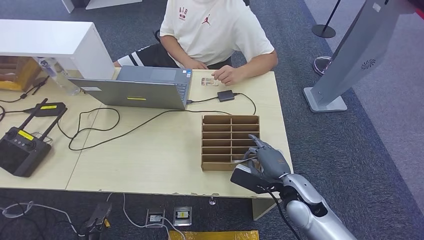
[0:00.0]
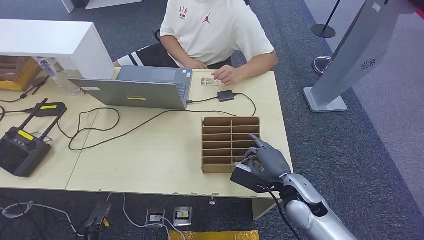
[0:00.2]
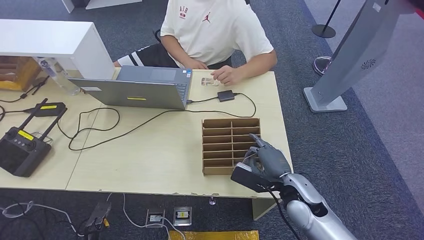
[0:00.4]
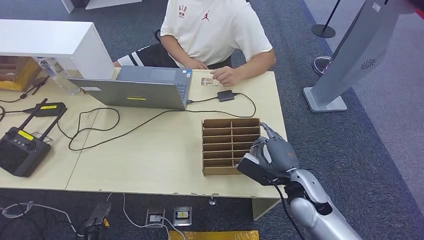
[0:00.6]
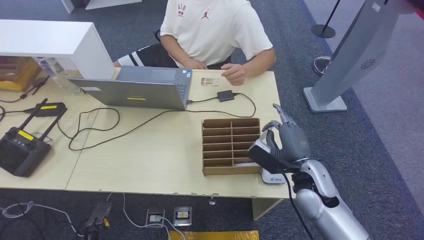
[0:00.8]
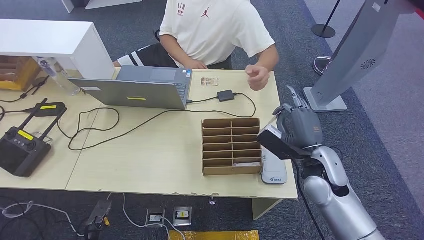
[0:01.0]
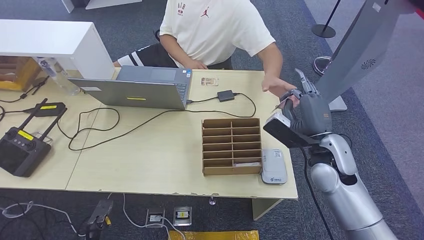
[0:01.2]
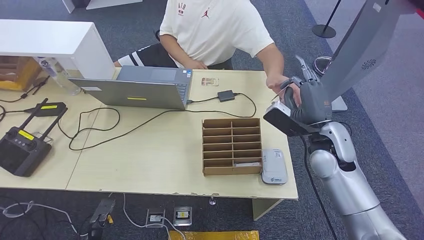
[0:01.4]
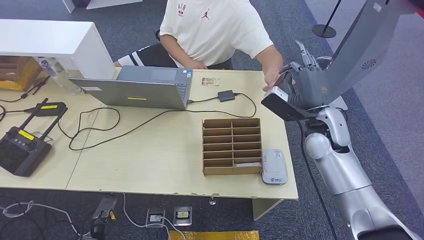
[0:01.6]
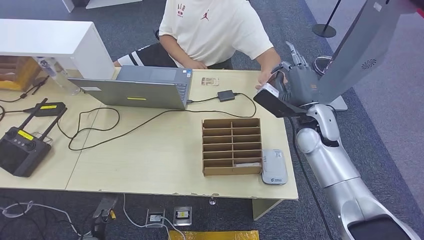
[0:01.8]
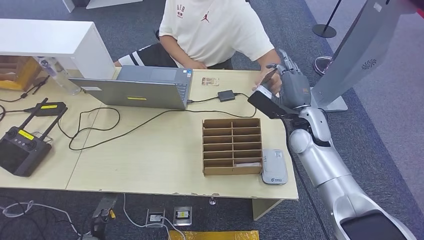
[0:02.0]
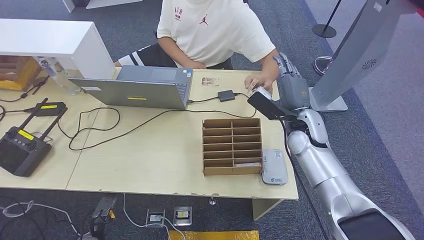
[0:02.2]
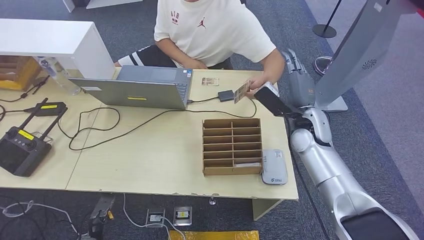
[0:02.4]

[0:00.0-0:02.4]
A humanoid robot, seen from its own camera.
Step, 0:00.8 to 0:02.4: Hand the room key to the person.
0:00.0 to 0:01.2: The right hand goes approximately 10 cm upward and forward.
0:01.2 to 0:02.4: The right hand goes roughly 10 cm forward.
